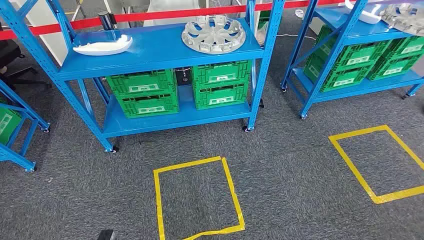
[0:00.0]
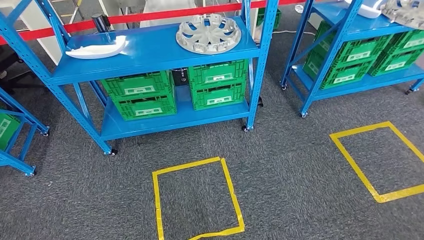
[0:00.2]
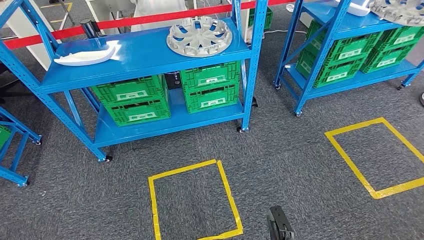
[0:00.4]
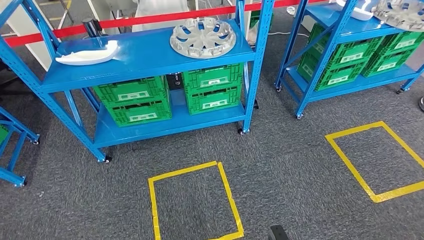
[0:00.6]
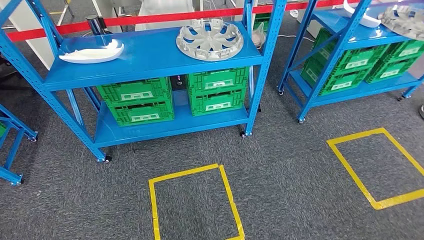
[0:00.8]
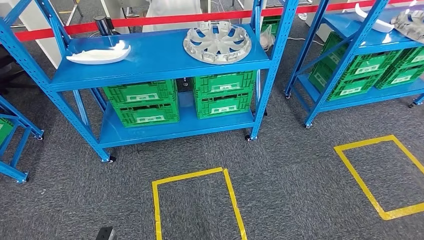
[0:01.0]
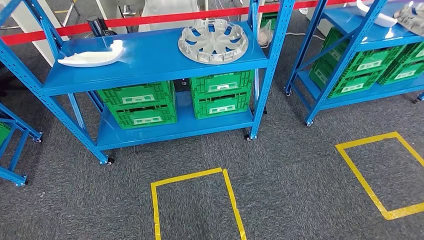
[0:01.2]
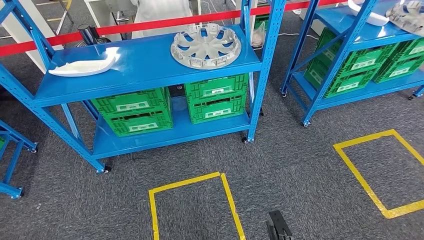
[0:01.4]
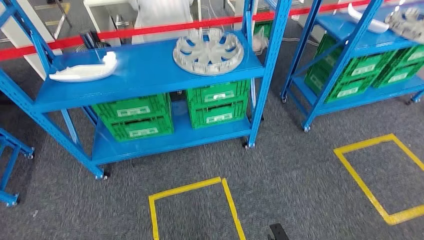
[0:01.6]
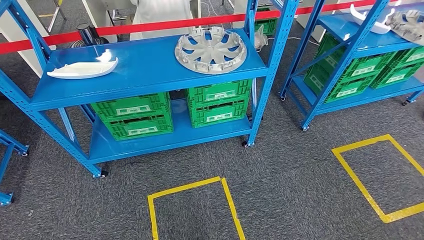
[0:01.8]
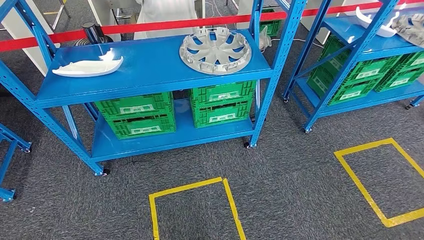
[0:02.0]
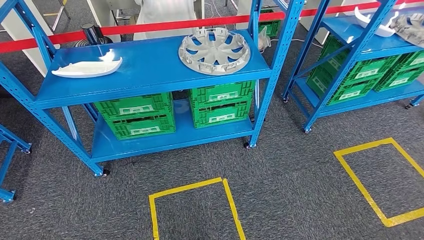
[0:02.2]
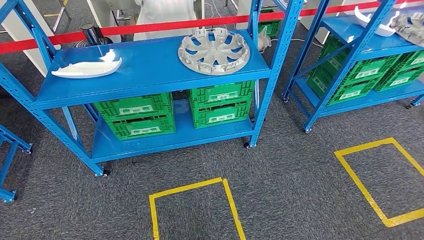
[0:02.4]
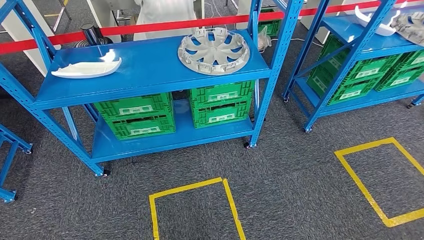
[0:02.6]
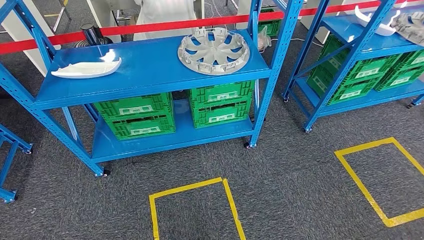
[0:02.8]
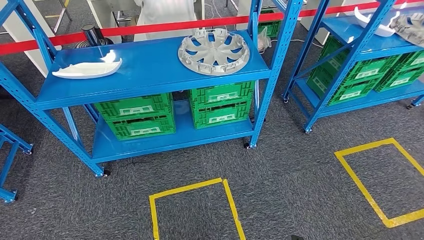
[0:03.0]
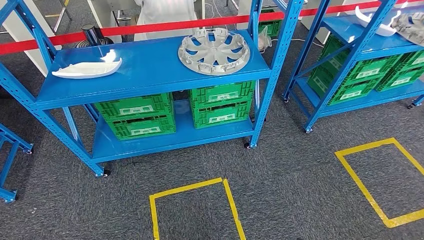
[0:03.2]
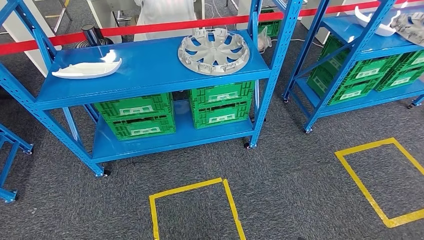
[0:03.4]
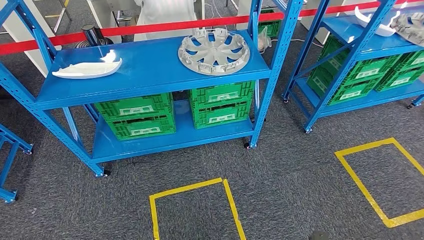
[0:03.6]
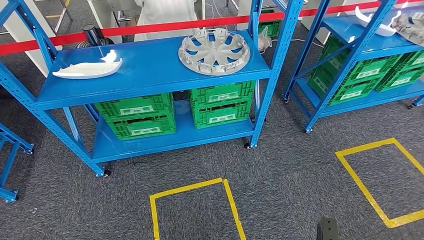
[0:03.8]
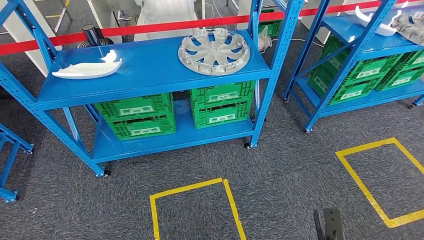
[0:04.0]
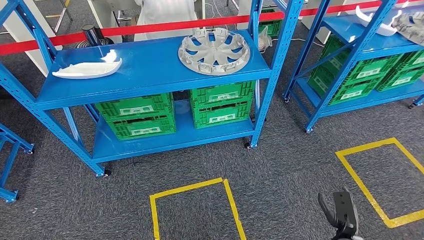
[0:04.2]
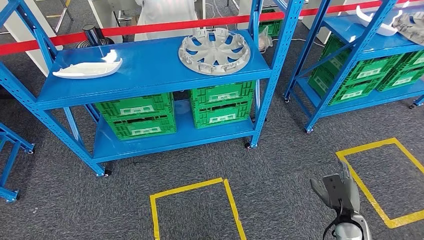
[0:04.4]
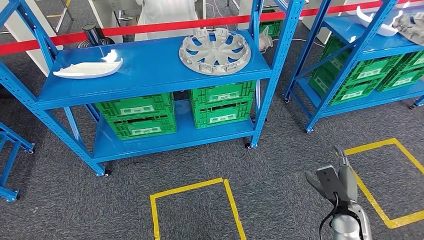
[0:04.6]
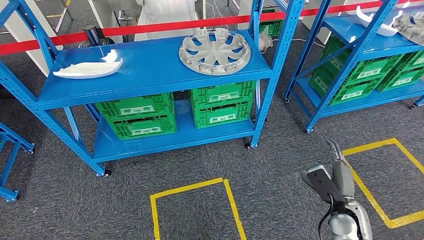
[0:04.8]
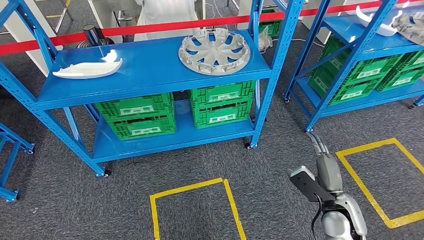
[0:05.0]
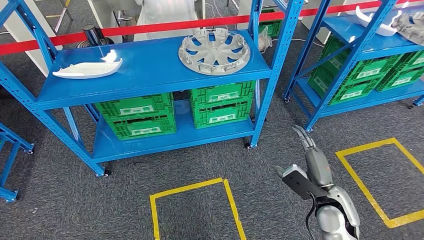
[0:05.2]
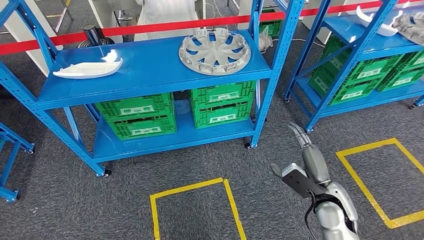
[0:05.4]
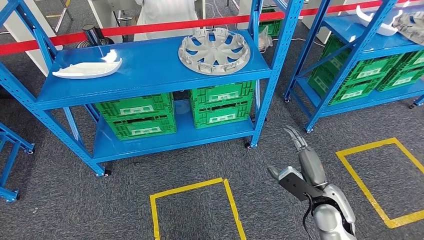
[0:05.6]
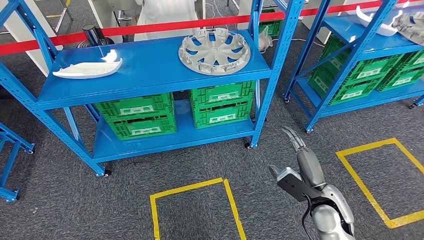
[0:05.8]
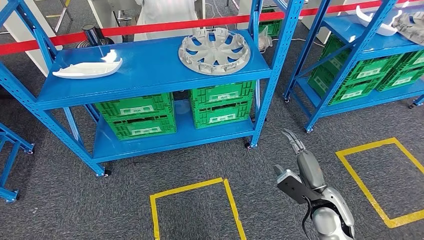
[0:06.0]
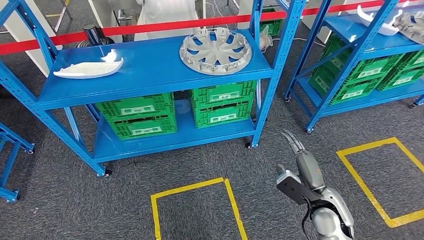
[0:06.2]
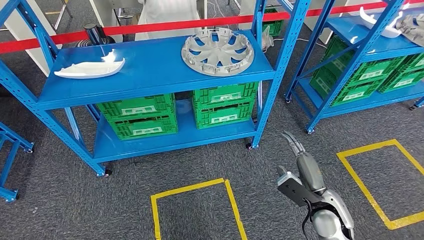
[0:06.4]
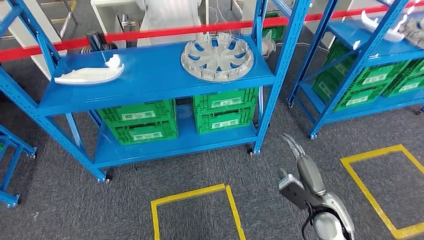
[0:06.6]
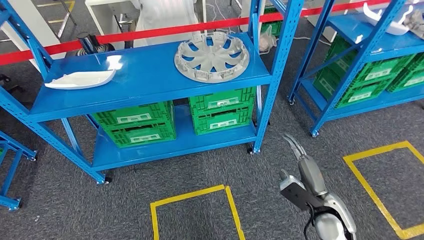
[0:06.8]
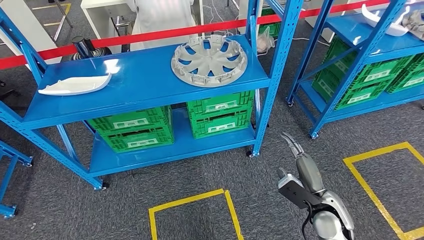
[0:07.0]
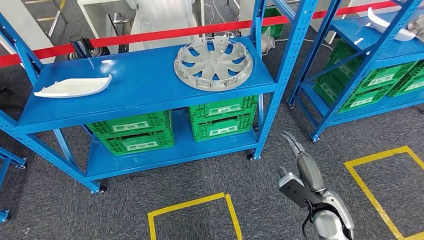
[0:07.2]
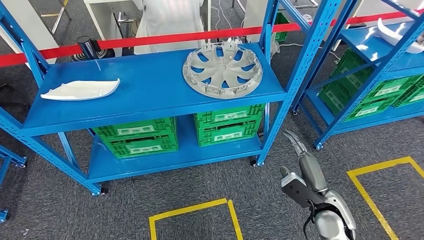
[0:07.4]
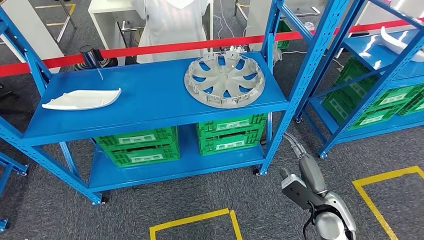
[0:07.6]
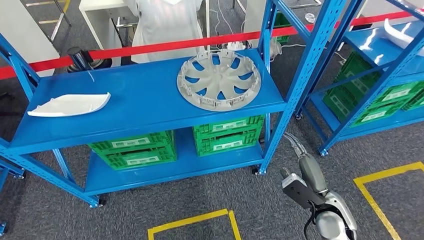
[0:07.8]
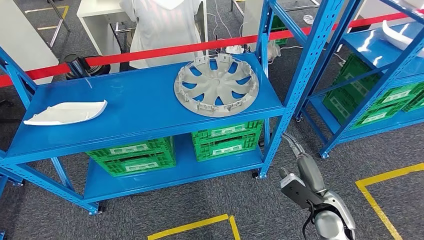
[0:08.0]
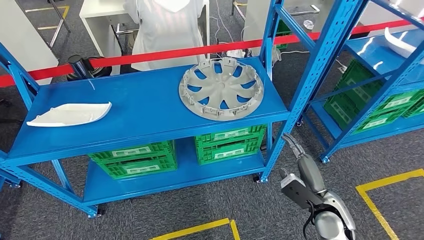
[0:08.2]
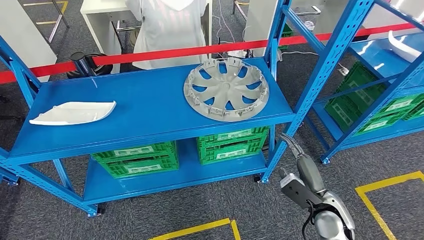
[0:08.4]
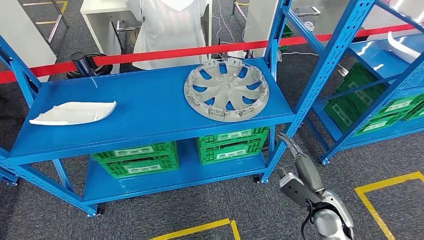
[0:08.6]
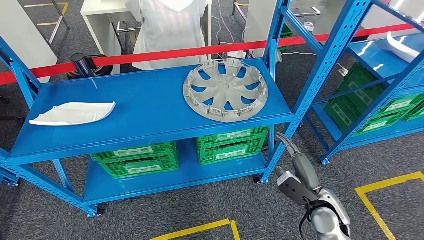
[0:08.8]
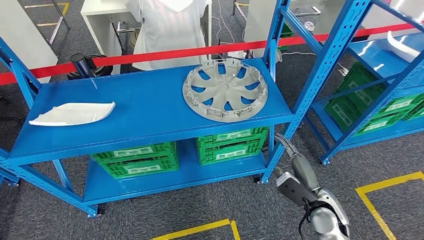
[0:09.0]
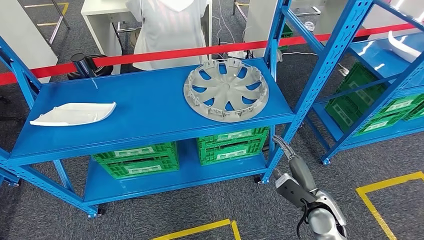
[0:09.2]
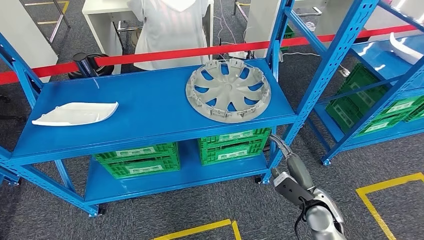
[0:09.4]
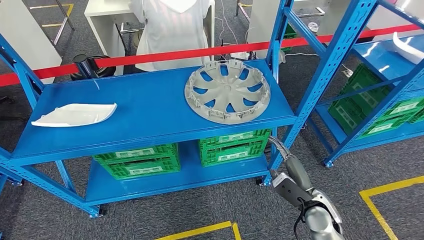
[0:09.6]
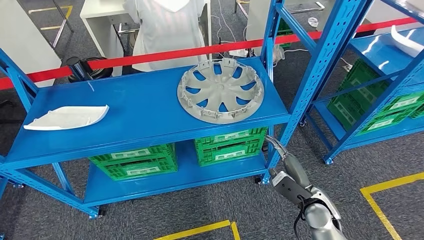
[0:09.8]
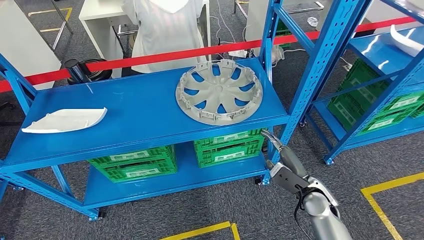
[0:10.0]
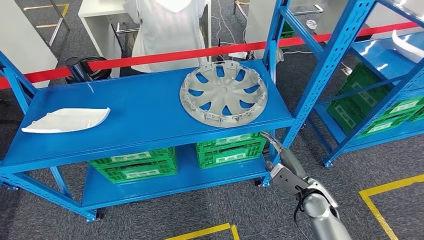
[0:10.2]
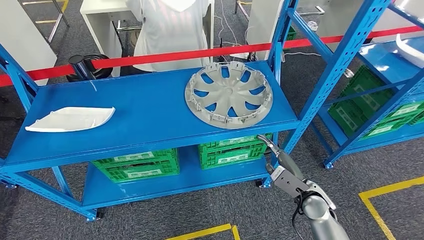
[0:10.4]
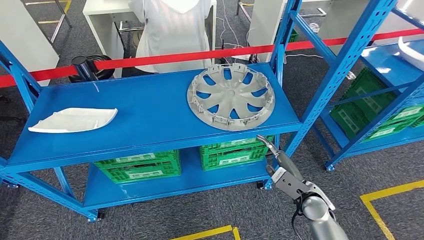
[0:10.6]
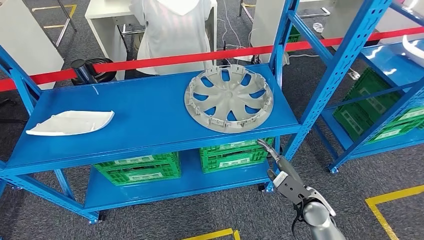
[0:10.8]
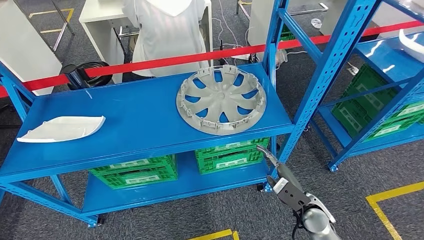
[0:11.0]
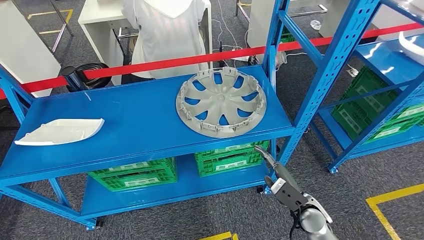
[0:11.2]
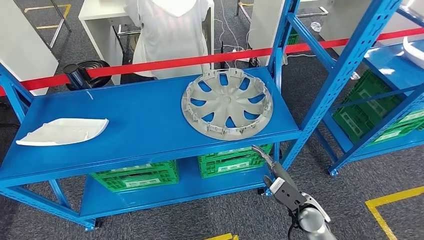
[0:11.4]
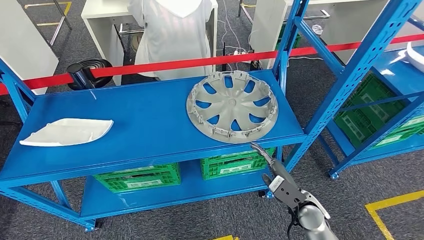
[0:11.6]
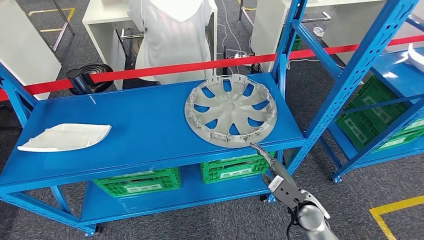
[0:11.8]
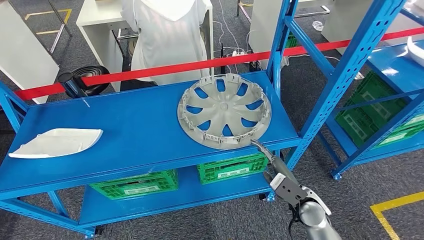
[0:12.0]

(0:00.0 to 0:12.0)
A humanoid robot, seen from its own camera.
0:03.0 - 0:04.4: The right hand shifts approximately 25 cm to the right, upward and forward.
0:04.4 - 0:06.0: The right hand travels upward, to the left and forward by some 15 cm.

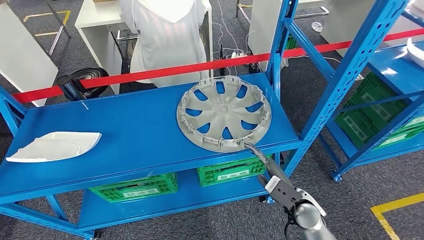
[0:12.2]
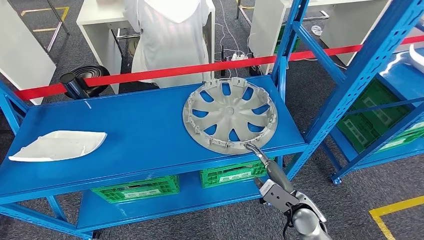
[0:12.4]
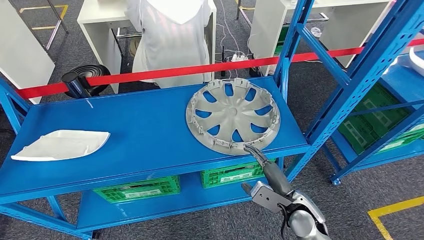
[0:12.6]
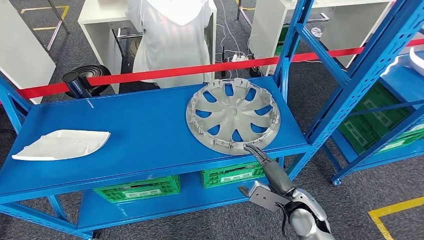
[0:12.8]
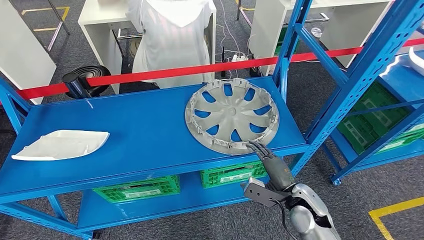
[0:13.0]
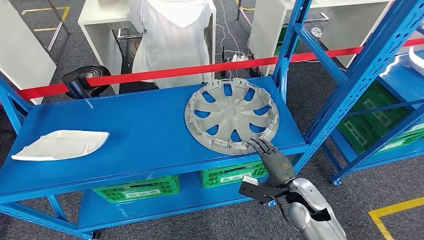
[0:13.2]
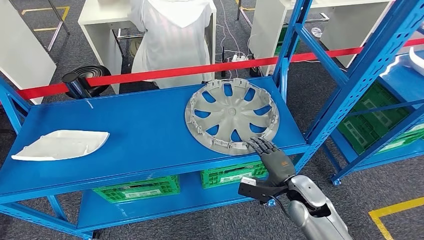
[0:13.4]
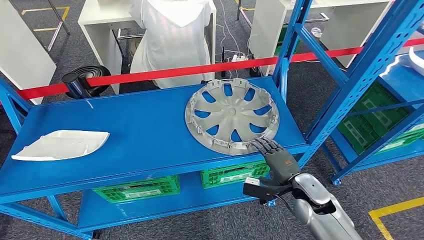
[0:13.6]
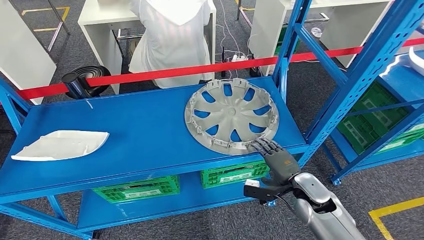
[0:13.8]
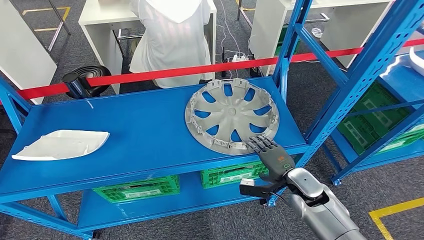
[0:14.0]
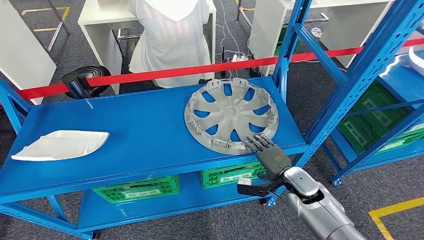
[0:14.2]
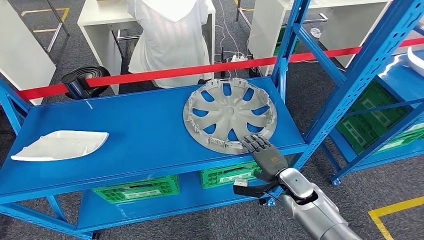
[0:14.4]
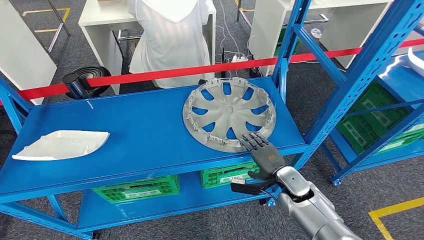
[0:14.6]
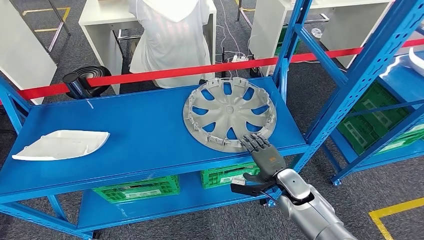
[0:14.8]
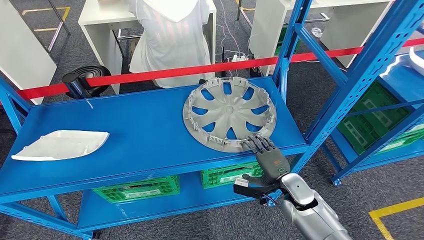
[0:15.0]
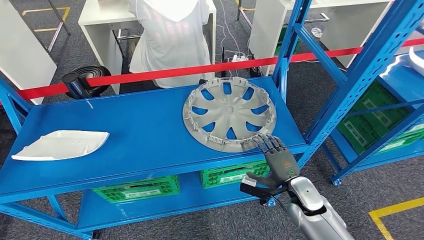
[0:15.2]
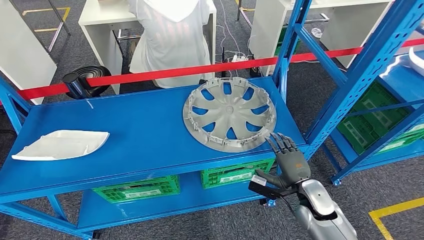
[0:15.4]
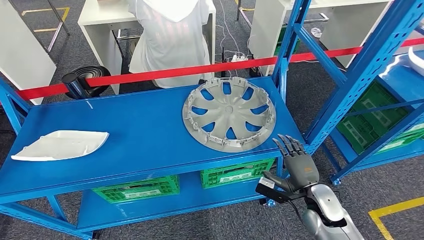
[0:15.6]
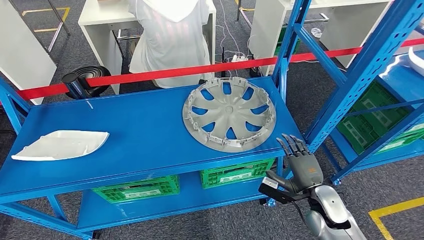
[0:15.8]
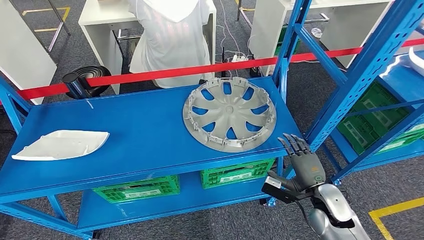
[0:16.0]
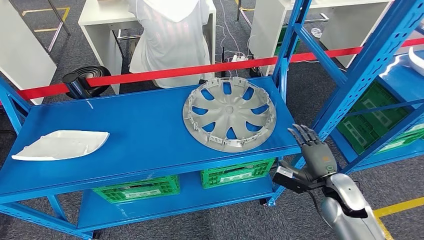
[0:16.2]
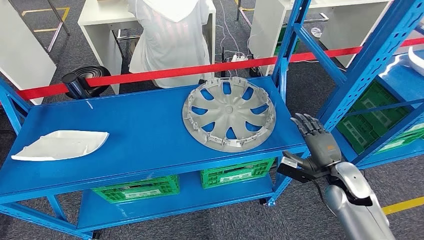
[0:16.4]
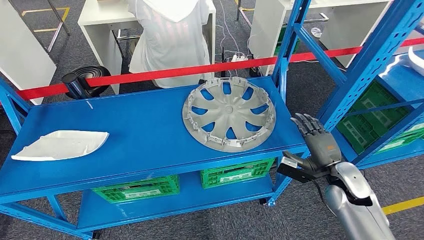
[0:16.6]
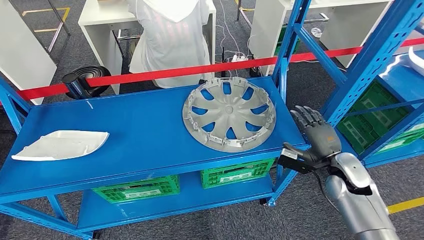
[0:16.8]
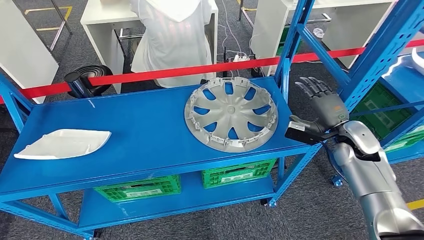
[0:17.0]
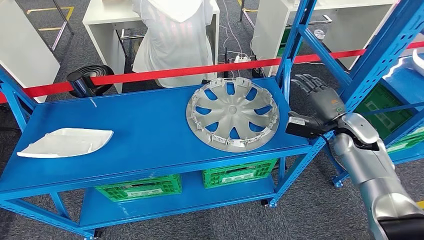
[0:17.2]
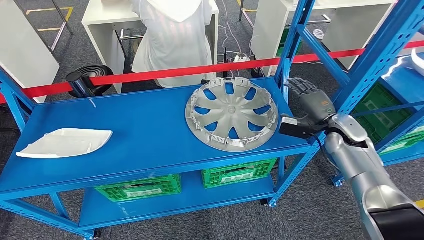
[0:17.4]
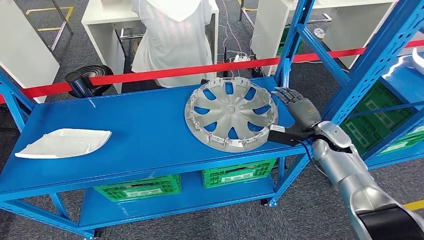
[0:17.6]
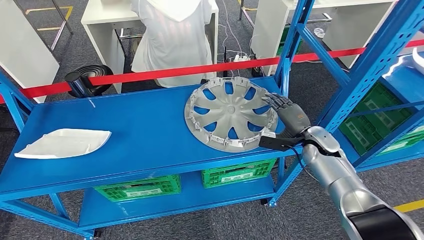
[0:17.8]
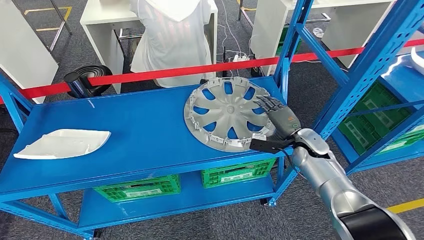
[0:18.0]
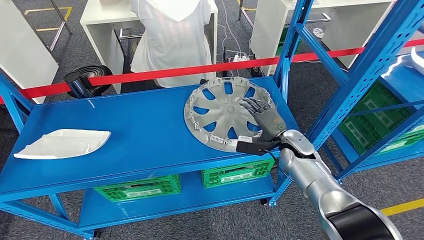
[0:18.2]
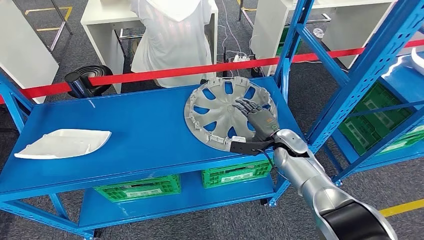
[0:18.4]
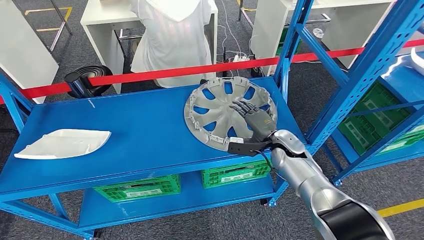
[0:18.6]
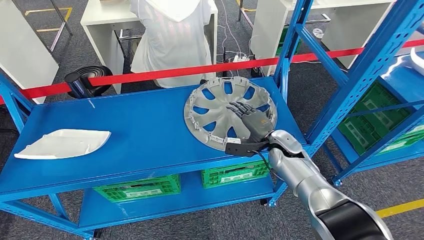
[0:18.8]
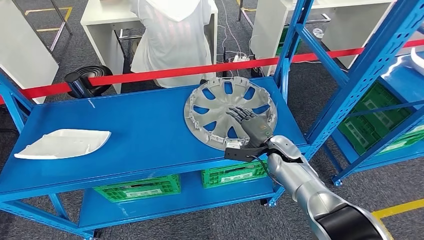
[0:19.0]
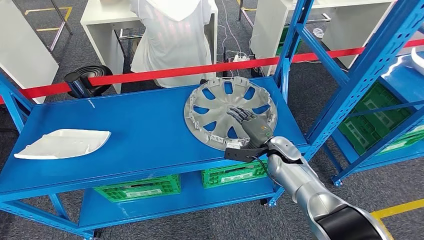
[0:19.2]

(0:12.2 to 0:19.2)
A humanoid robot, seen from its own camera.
0:13.6 - 0:15.0: The hands stay close to where they were, moving slightly.
0:15.0 - 0:16.4: The right hand travels to the right and upward by about 15 cm.
0:17.8 - 0:19.2: The right hand heads to the left, covering approximately 10 cm.
